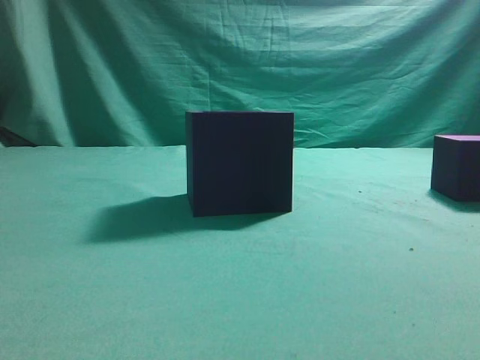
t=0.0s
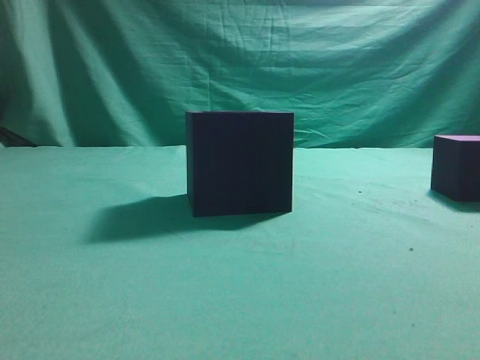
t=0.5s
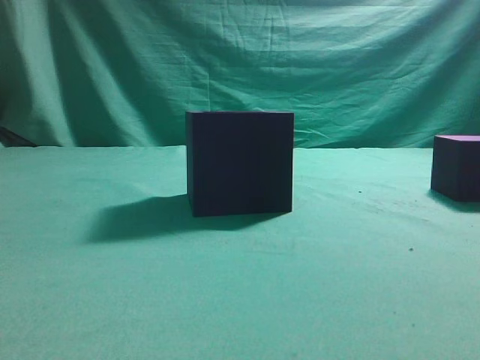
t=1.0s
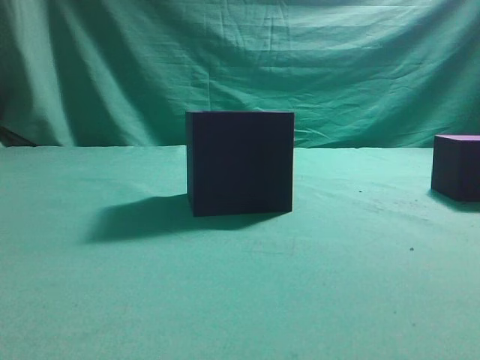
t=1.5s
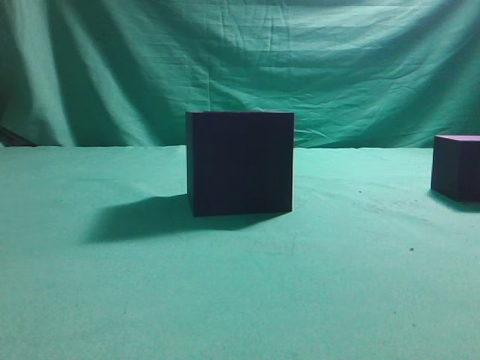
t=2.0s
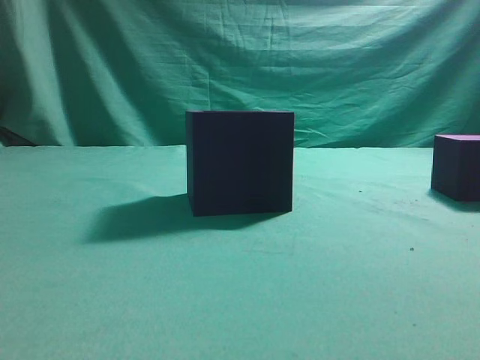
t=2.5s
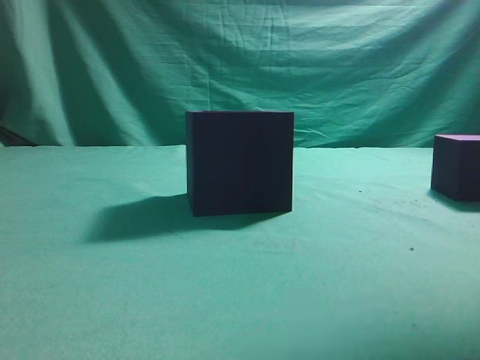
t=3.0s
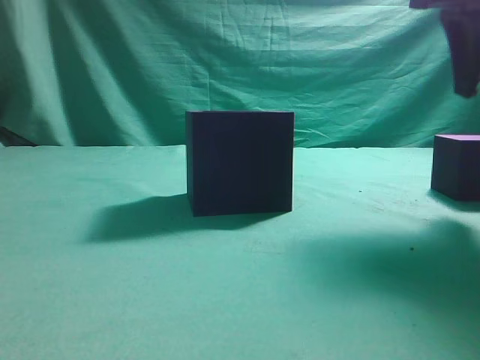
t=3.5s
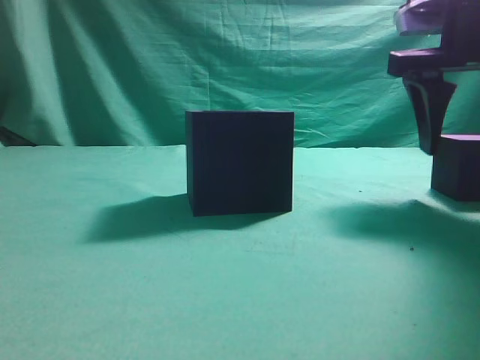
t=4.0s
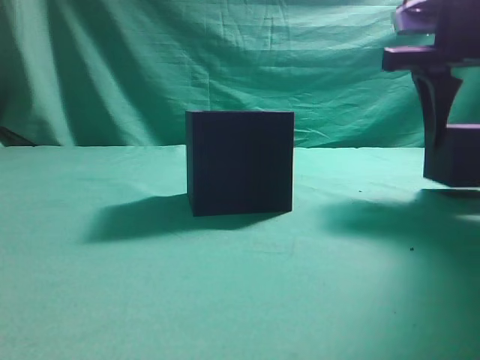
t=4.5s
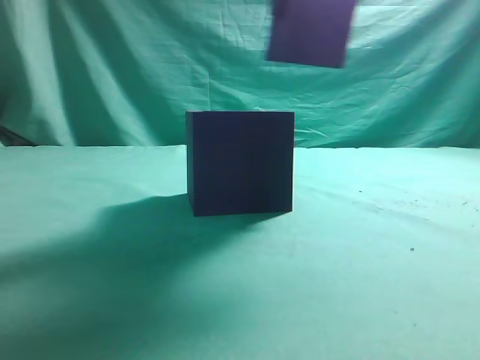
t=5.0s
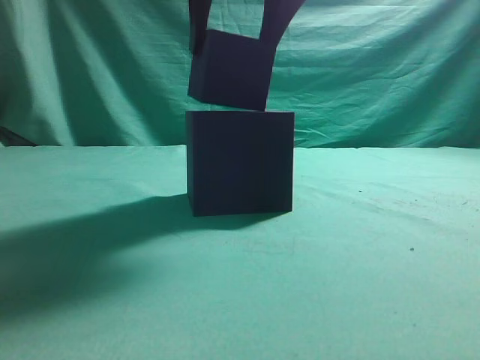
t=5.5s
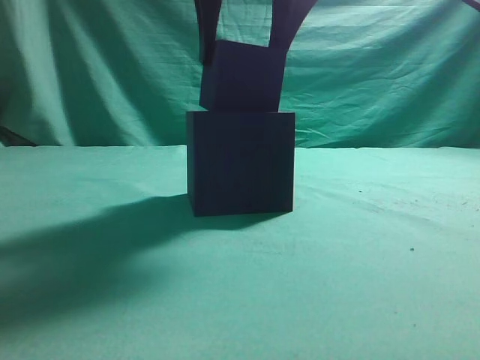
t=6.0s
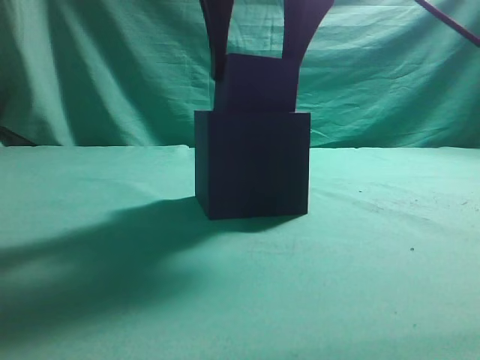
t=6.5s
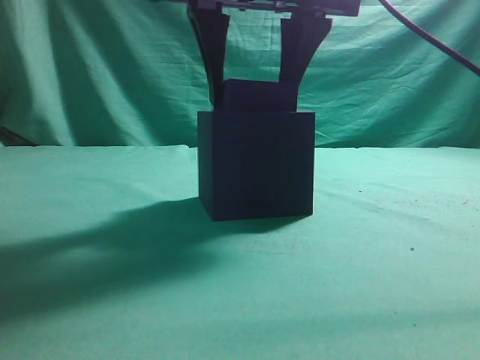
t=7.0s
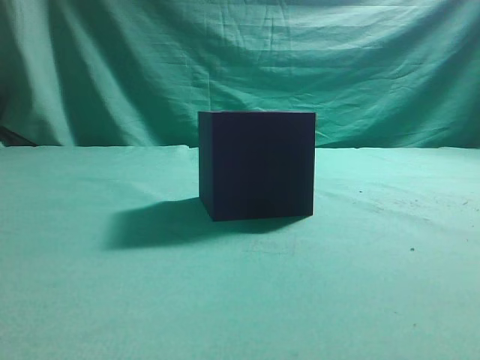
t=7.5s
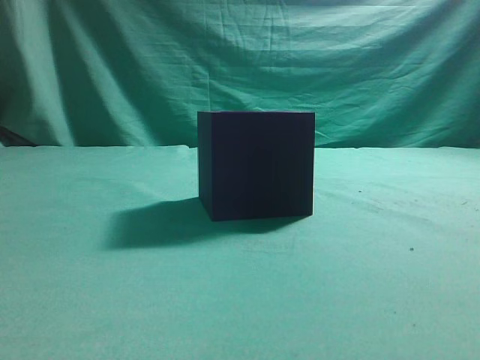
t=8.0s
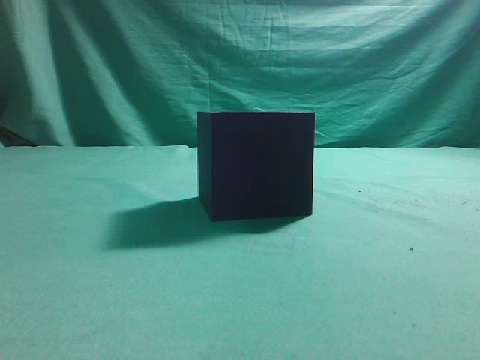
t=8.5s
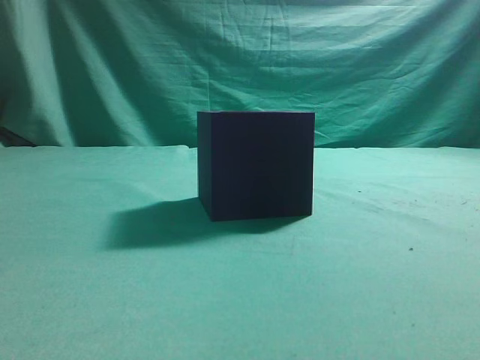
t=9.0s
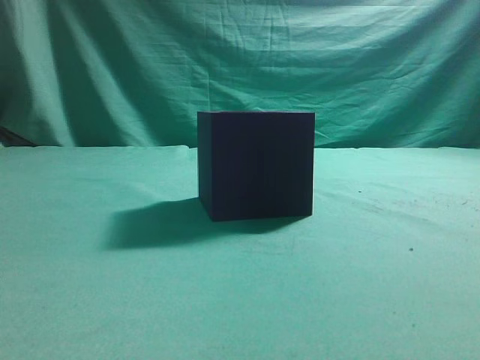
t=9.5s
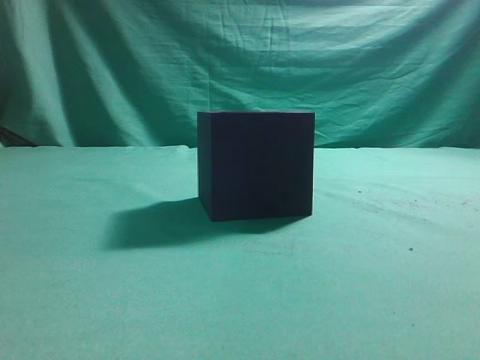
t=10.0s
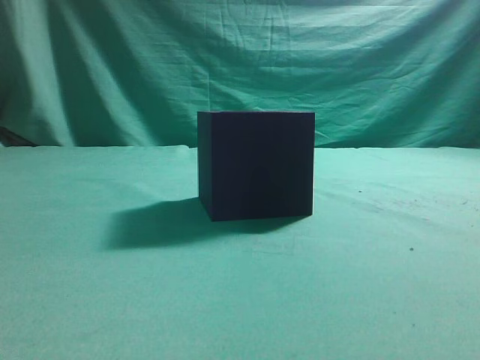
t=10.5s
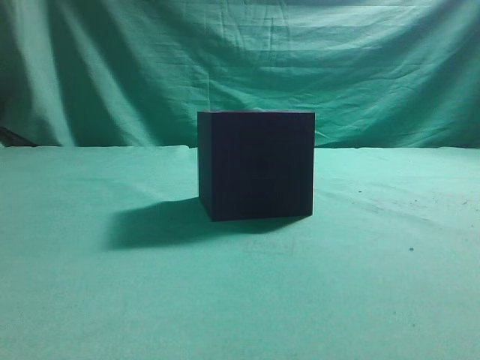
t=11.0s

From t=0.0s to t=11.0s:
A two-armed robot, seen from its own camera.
Task of the whole recording: pick up the cube block and place it into the cube groove.
Step, from t=0.0s to t=4.5s: Grasp the cube.
Step, from t=5.0s to t=7.0s: Place cube into the cube-shaped recess.
From t=2.0s to t=3.5s: The right gripper shifts approximately 20 cm forward, and opens up.
From t=3.5s to t=5.5s: The right gripper is displaced to the left by about 20 cm.
From t=5.5s to t=7.5s: The right gripper shifts some 10 cm upward, and closes.
